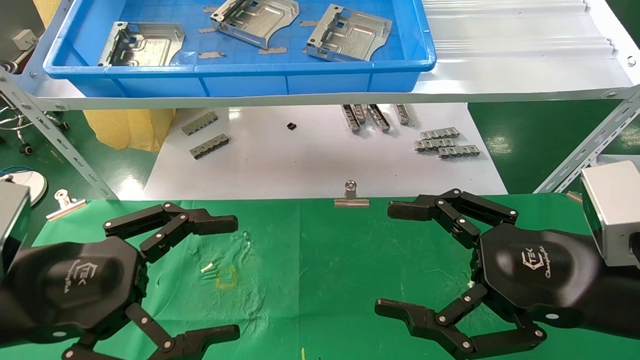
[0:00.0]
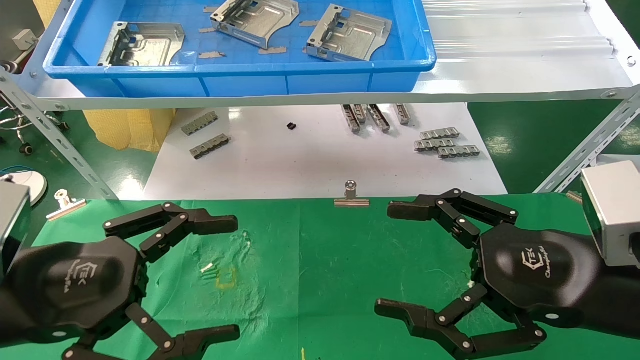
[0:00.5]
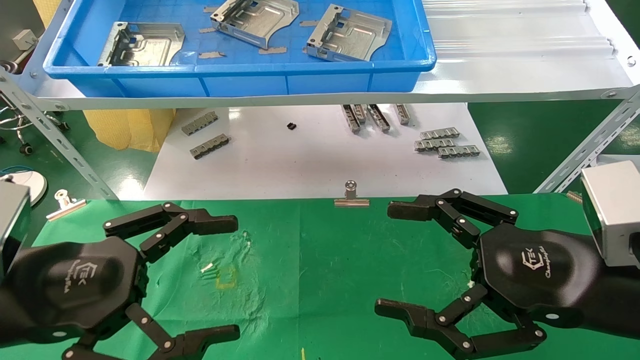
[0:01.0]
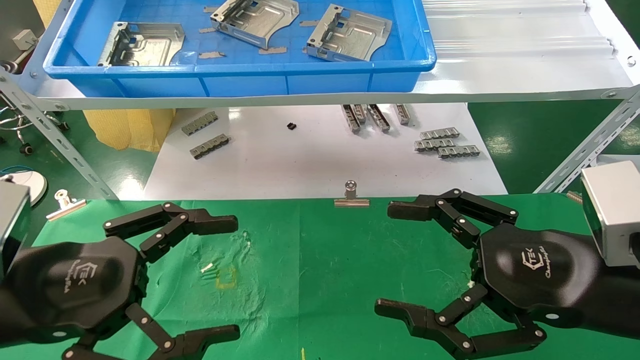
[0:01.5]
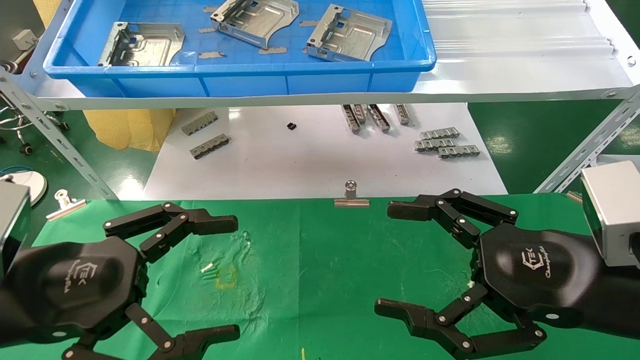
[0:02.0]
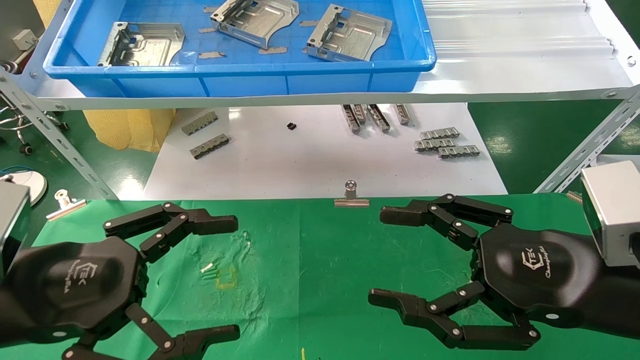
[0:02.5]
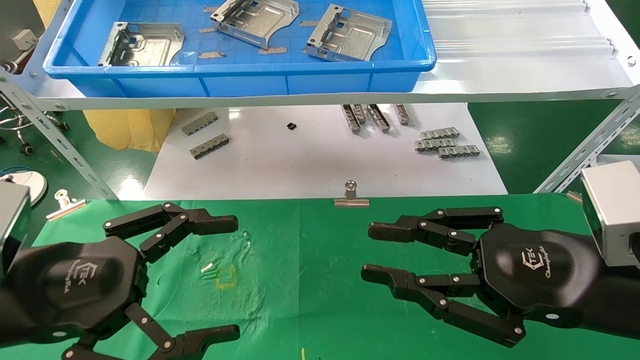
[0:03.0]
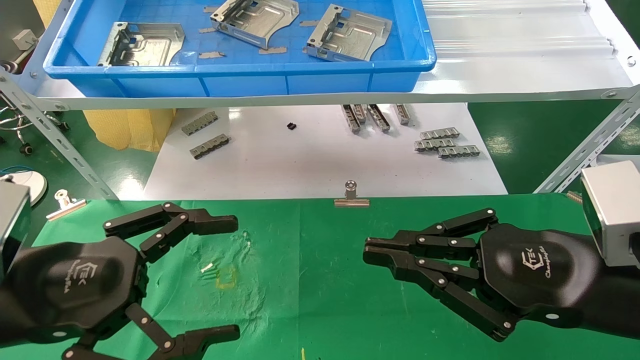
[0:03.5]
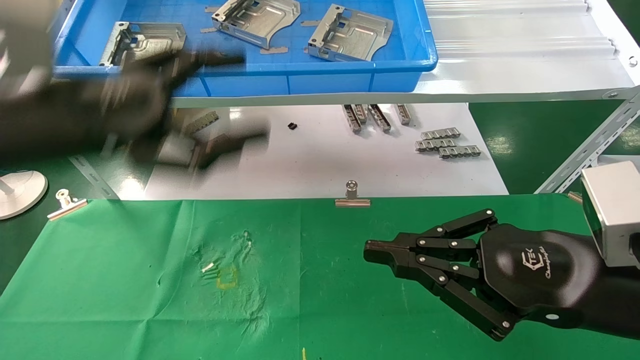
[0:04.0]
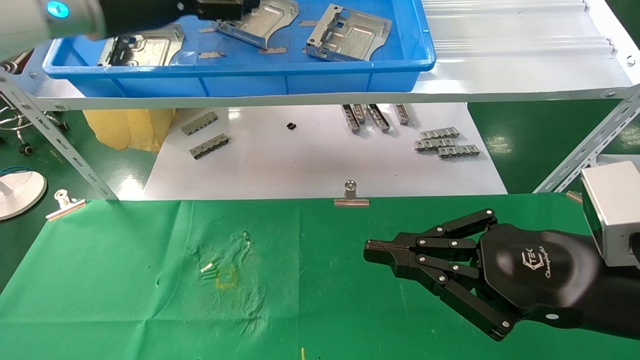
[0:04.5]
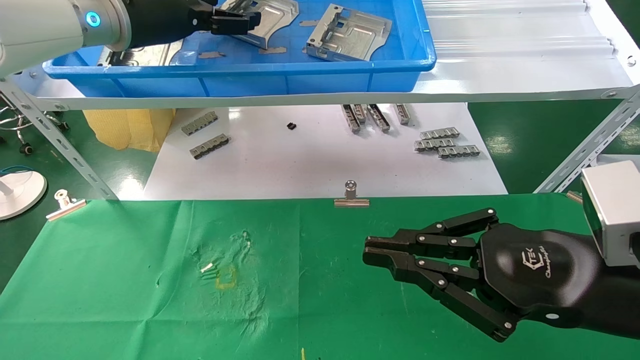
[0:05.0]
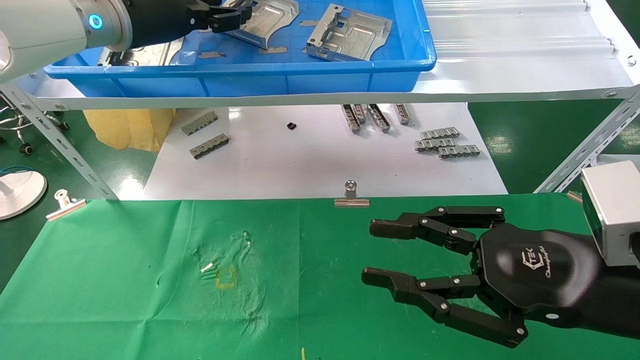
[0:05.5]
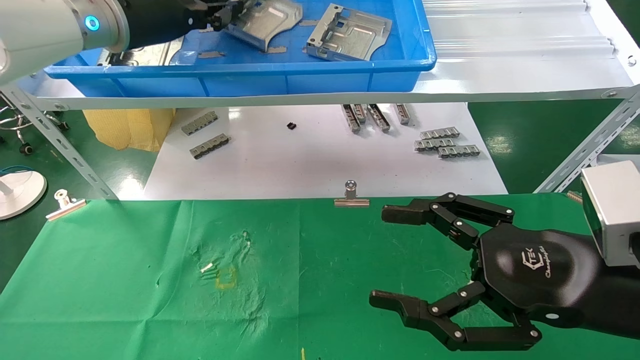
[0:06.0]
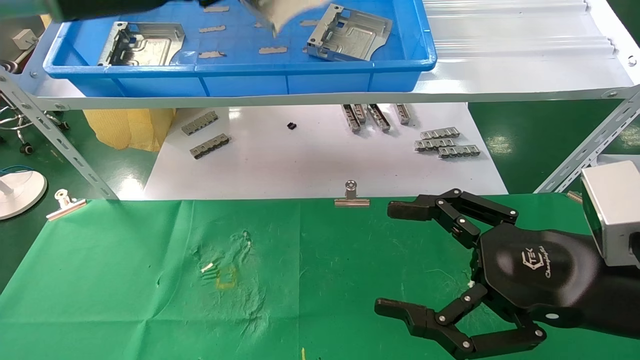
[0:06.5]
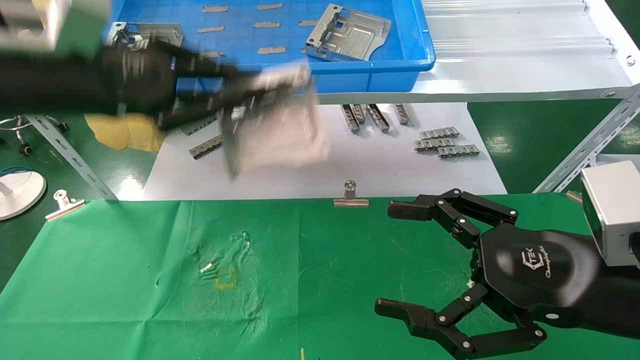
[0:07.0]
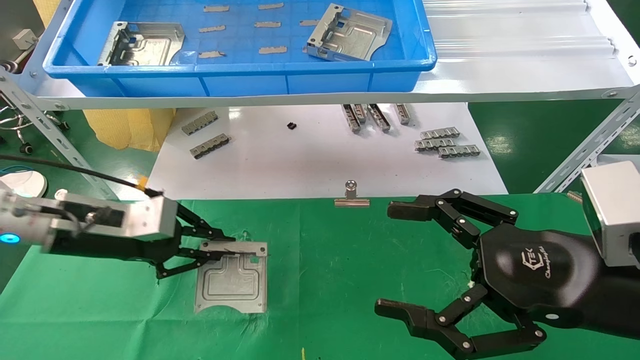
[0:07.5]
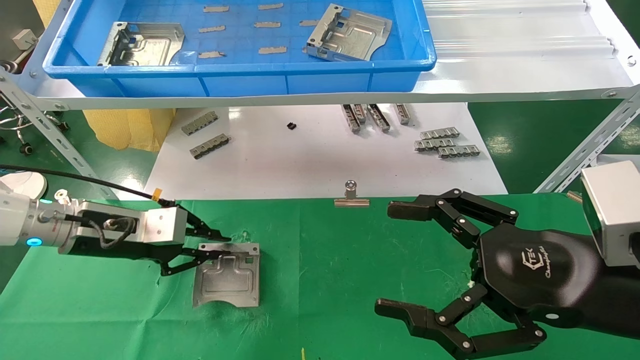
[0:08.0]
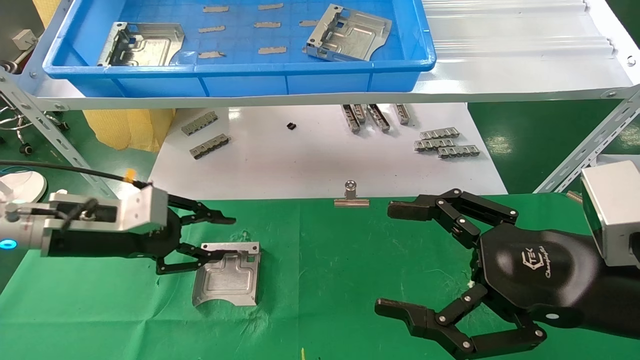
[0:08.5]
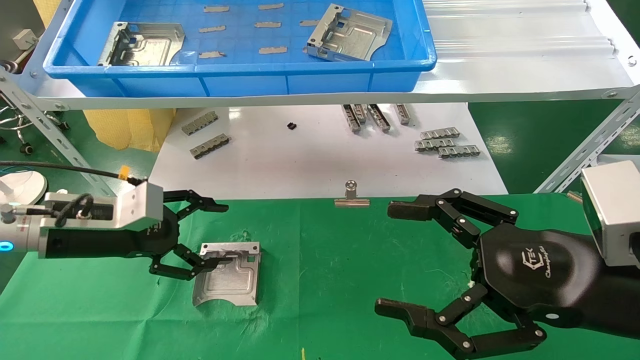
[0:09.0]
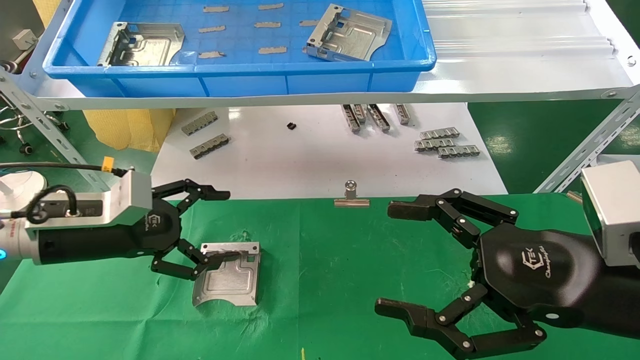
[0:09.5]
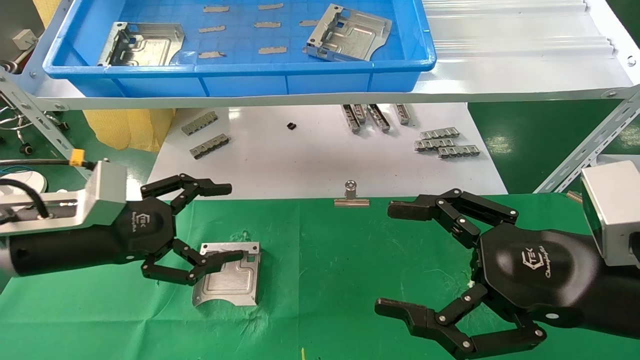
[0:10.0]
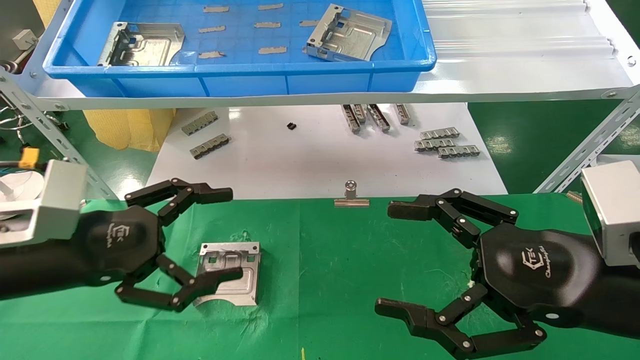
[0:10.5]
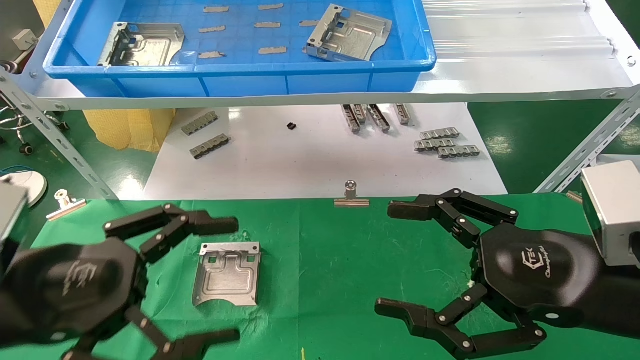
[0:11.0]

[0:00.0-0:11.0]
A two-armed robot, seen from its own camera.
Task of the whole recording: use the mechanical arm to pick up the parts and place them on the table.
Step, 0:02.0 to 0:05.5: Pick up the hard drive bracket from the feeding area.
Step, 0:06.0 to 0:09.0: Place the hard drive bracket into the box.
0:00.0 to 0:02.0: The two grippers keep their place.
0:02.0 to 0:03.5: The right gripper closes.
0:03.5 to 0:05.5: The left gripper is displaced forward and upward by about 30 cm, and closes its fingers.
0:05.5 to 0:07.5: The left gripper shifts approximately 20 cm downward, and closes. The right gripper opens.
0:07.5 to 0:09.0: The left gripper opens.
0:09.0 to 0:11.0: The left gripper is displaced backward by about 15 cm.

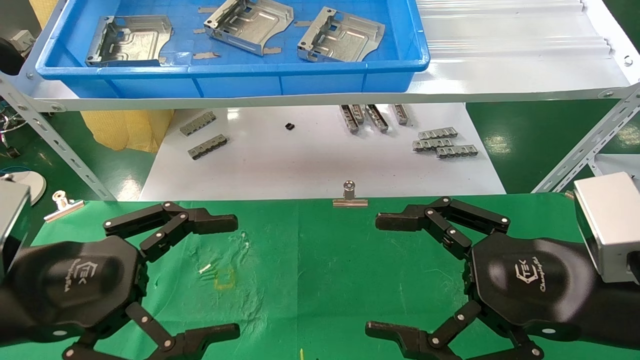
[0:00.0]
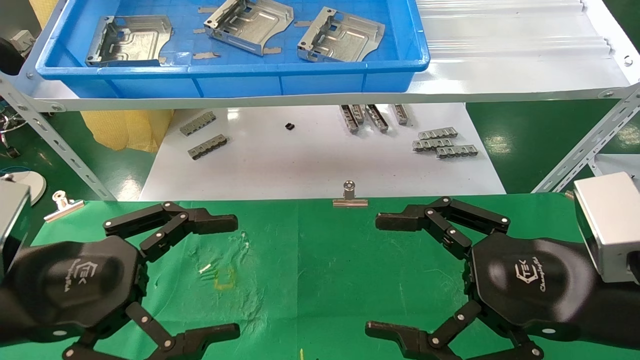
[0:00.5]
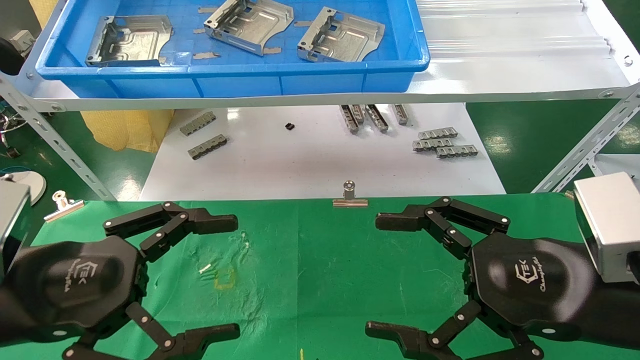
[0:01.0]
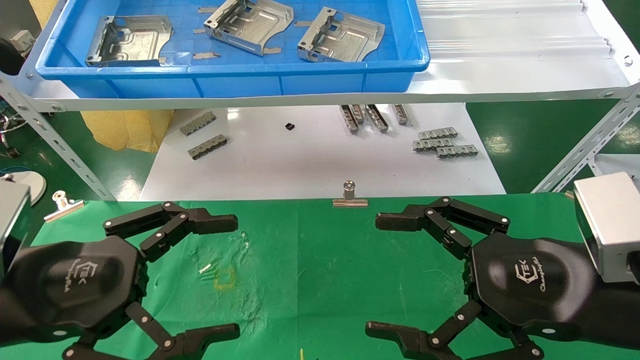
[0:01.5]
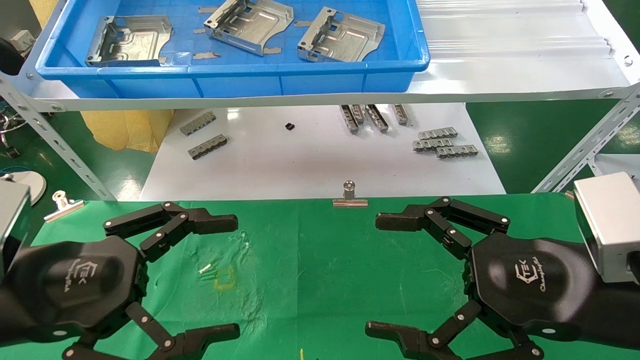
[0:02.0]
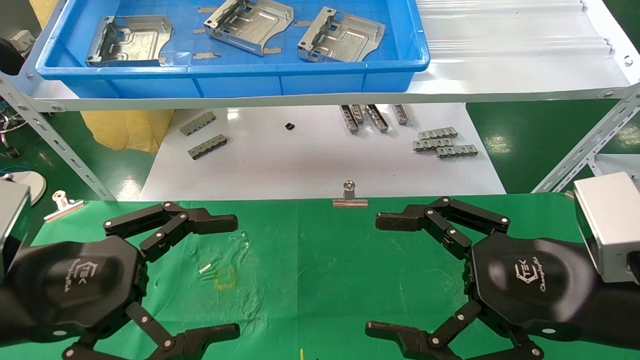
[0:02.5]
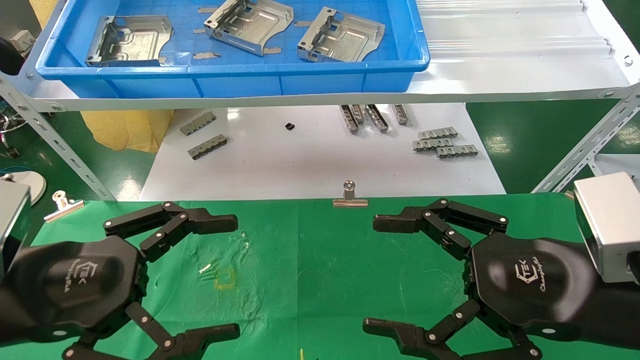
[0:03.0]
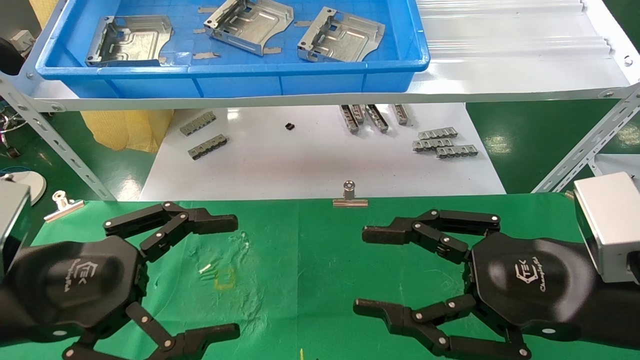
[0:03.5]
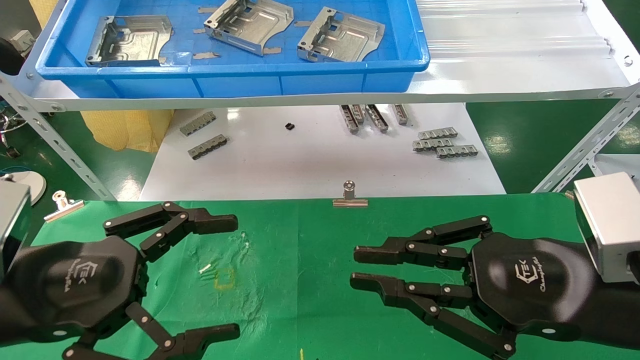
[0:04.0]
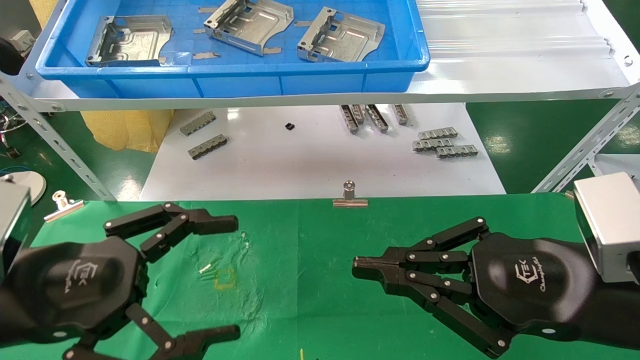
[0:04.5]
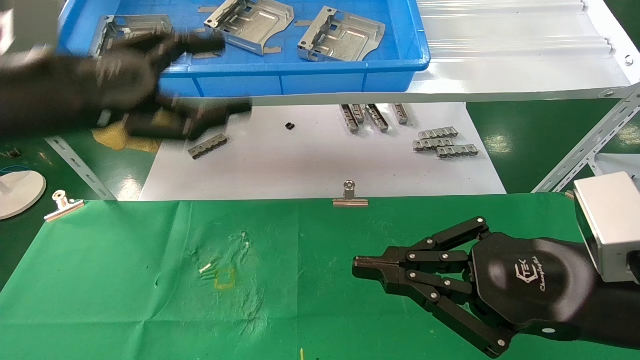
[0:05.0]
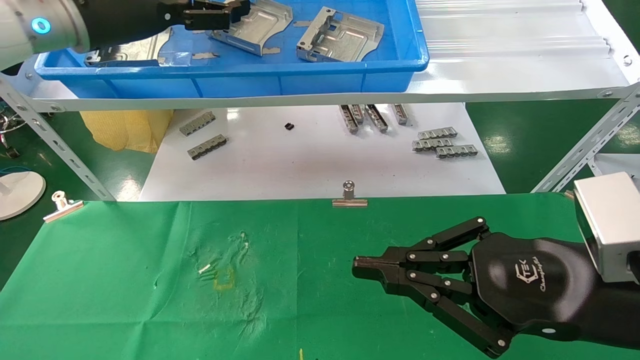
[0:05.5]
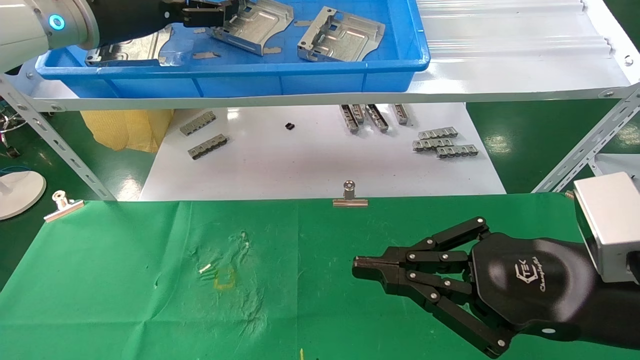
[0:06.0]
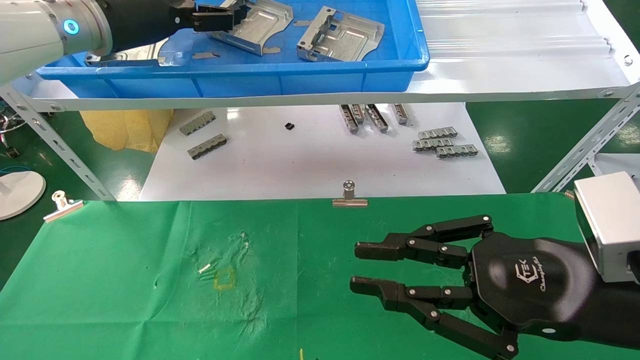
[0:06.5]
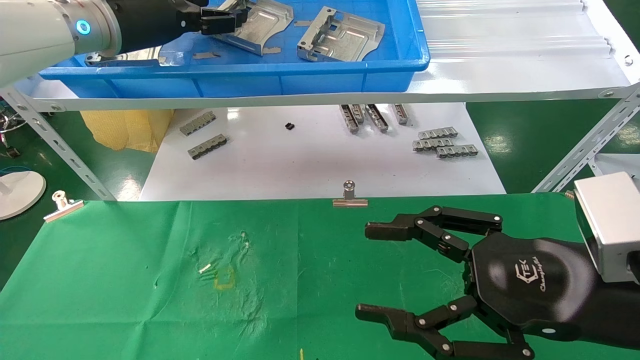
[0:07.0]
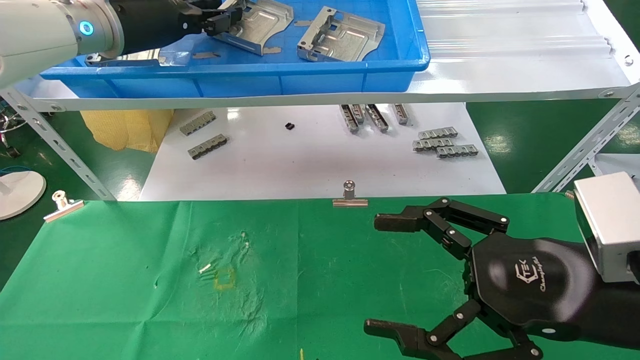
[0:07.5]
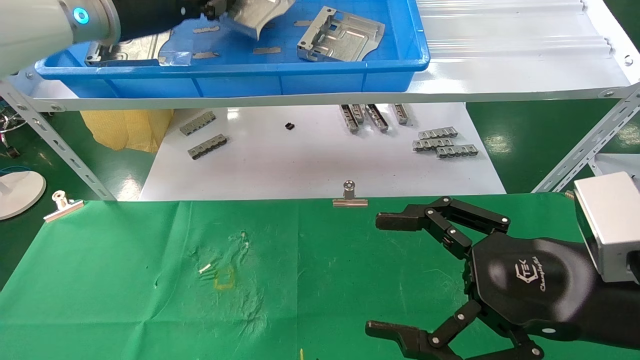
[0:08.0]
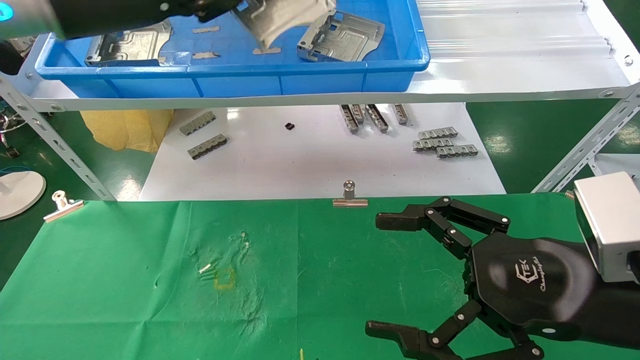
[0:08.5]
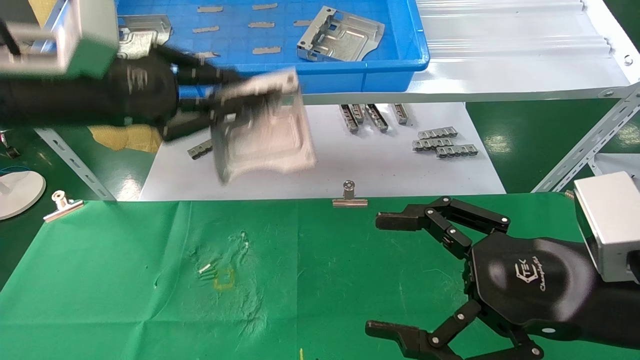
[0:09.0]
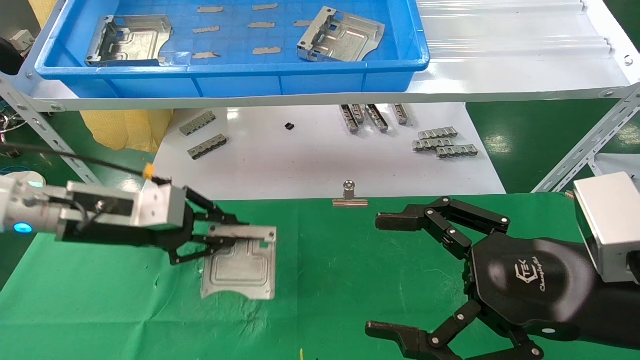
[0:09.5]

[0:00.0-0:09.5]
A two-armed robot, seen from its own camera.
Task of the whole recording: use the mechanical arm to pick up the parts and place them on the table.
Step, 0:05.0 to 0:07.5: Pick up the hard drive bracket from the feeding area.
0:00.0 to 0:02.0: Neither gripper changes place.
0:02.0 to 0:04.0: The right gripper closes up.
0:04.0 to 0:05.5: The left gripper goes some 30 cm upward and forward.
0:05.5 to 0:07.5: The left gripper closes its fingers, while the right gripper opens its fingers.
0:07.5 to 0:09.5: The left gripper moves downward, approximately 20 cm, and closes.
